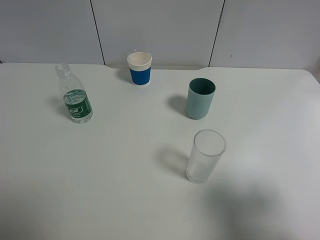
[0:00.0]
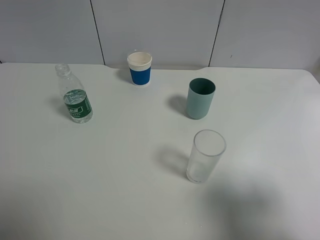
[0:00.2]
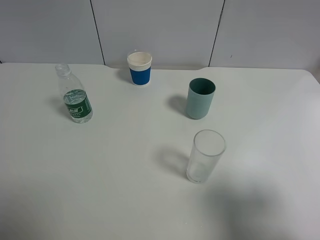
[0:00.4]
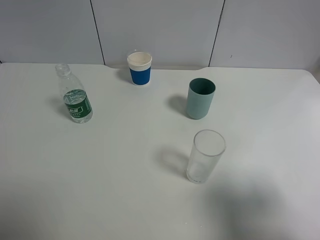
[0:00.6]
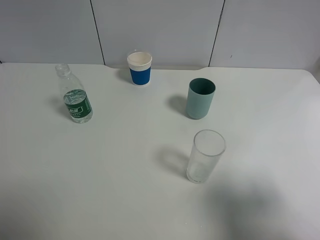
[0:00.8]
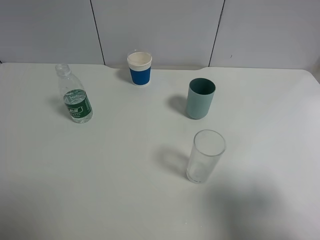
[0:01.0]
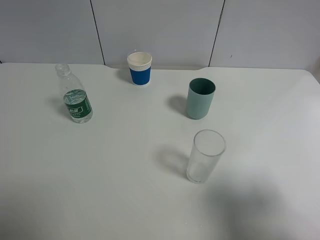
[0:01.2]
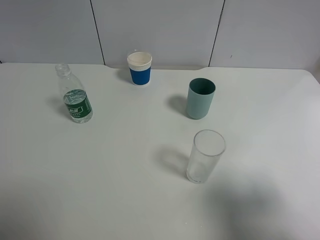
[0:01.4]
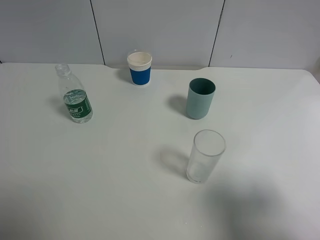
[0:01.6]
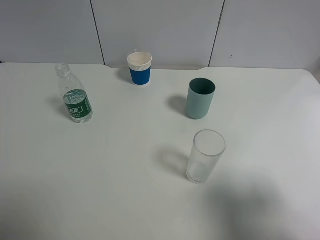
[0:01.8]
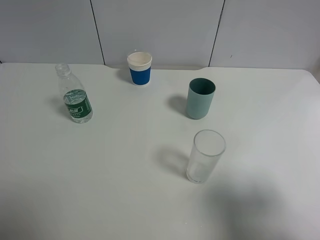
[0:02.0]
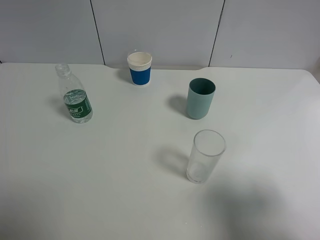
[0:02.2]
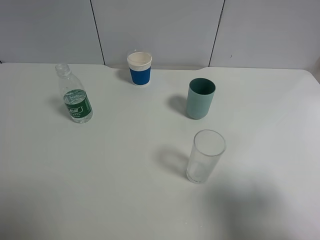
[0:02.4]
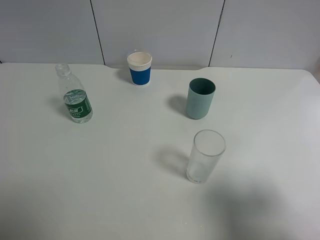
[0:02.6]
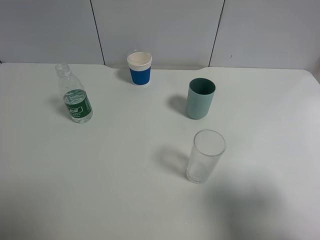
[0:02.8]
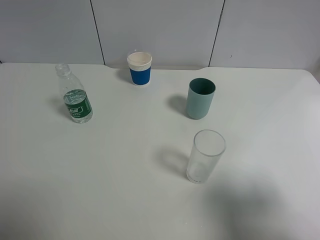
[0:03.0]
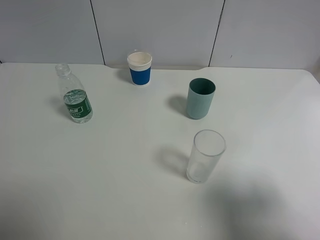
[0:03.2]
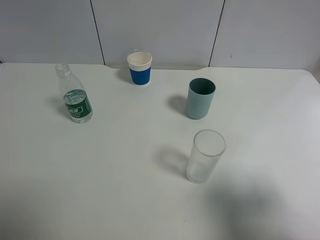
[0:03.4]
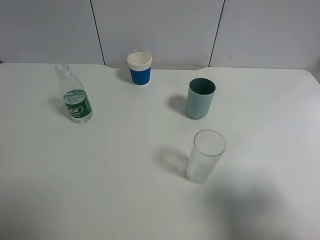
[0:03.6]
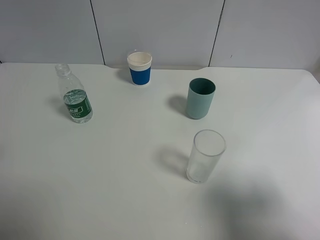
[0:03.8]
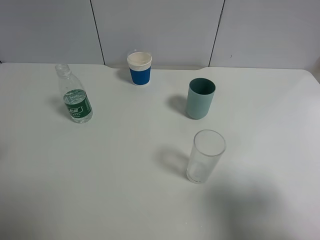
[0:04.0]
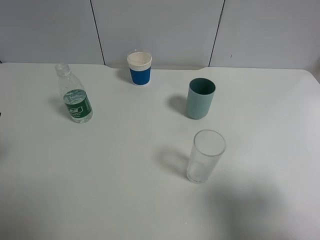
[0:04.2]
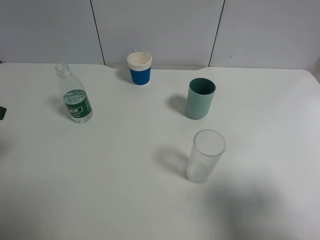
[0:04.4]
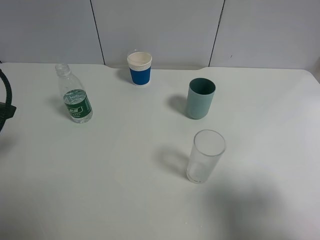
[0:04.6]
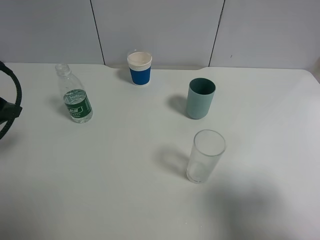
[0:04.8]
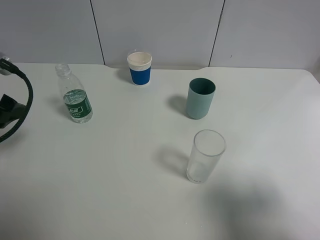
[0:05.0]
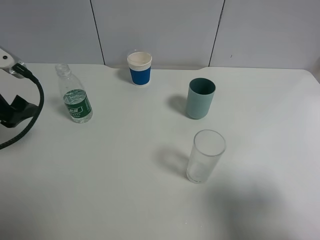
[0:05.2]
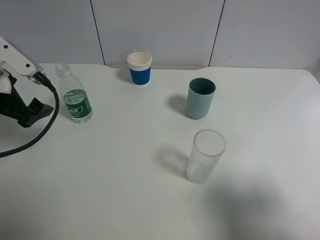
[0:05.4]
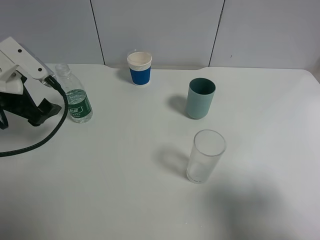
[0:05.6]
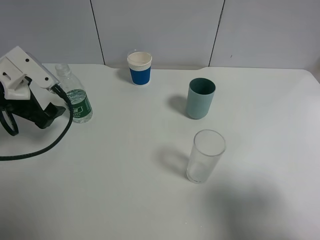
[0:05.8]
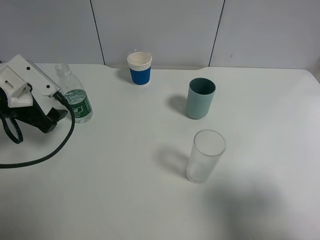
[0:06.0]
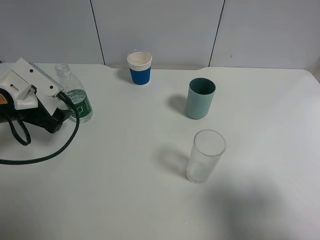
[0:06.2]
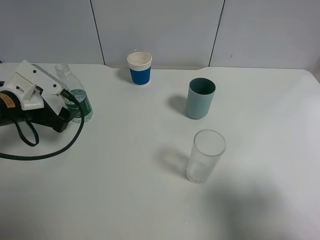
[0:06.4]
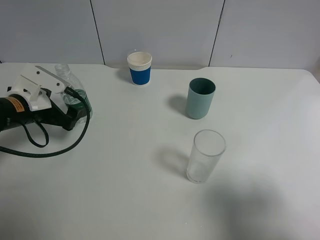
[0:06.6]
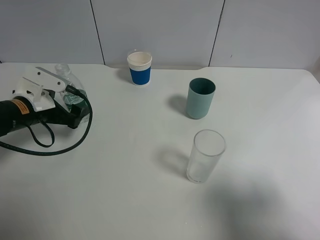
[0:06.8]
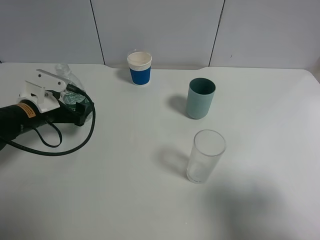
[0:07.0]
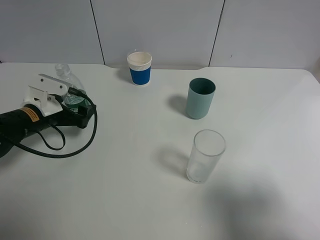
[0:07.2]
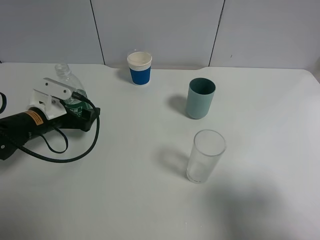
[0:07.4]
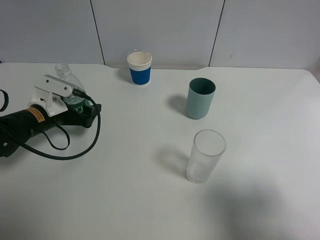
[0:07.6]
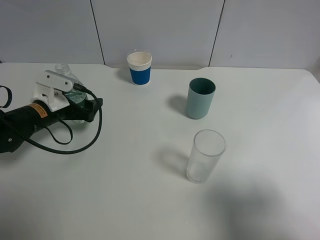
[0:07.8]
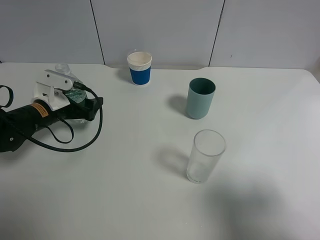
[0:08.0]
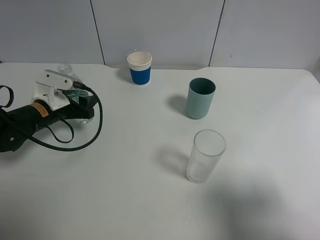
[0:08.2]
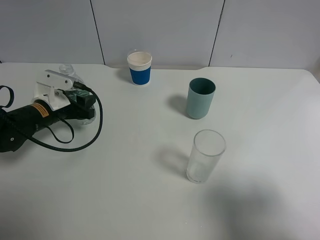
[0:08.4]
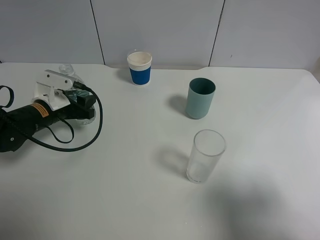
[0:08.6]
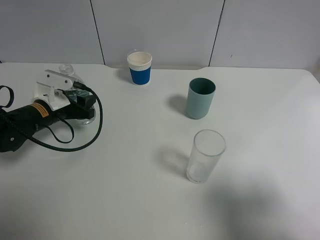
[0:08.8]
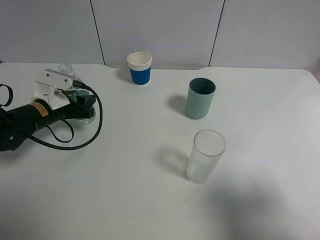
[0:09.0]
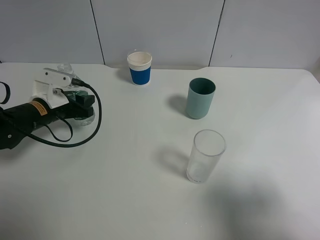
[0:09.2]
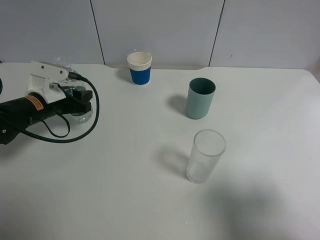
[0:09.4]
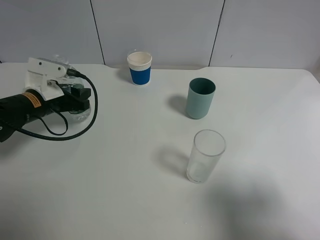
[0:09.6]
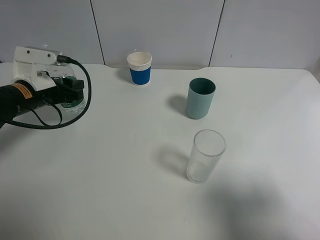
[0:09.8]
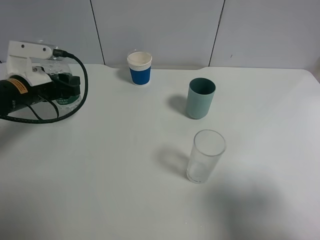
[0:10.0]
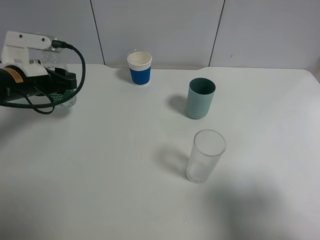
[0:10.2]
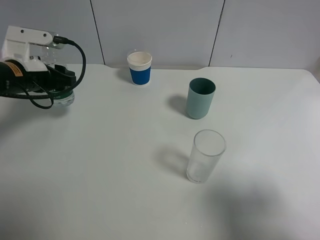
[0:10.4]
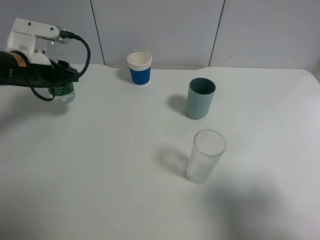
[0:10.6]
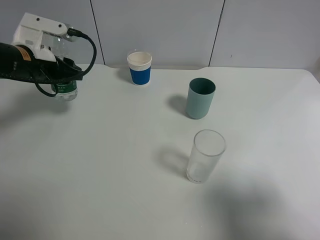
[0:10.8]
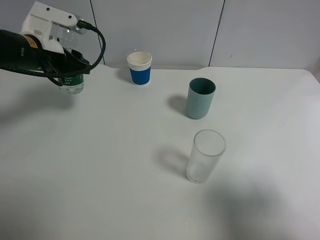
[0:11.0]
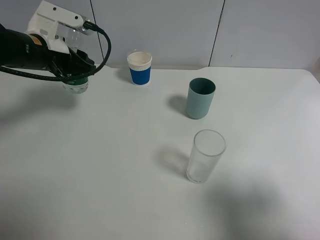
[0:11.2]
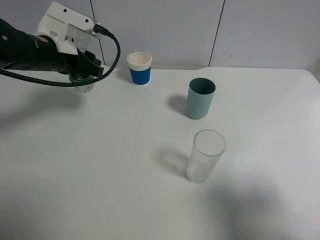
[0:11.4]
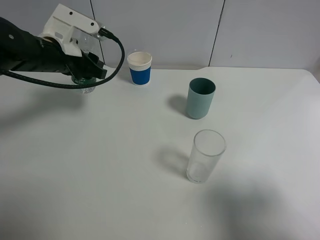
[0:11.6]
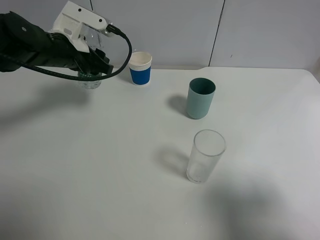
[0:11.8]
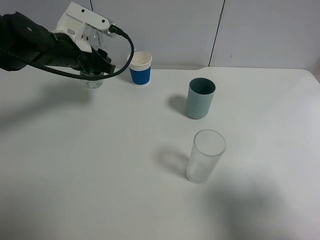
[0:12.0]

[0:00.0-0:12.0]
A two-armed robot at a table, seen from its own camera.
Task of the whole recording: use a gripper to hold the bottle of the drink and pour it into a random cup.
Step, 0:00.0 to 0:08.4: Grasp the mineral water bottle with the left gripper.
0:00.0 to 0:03.0: Both grippers stay put.
0:04.4 to 0:06.0: The left gripper travels downward and forward by roughly 15 cm.
0:06.0 to 0:07.6: The left gripper shifts approximately 10 cm downward.
0:07.6 to 0:09.0: The left gripper closes its fingers.
0:09.0 to 0:10.4: The left gripper moves upward, about 10 cm.
0:10.4 to 0:12.0: The left gripper is displaced to the right and forward by approximately 10 cm.

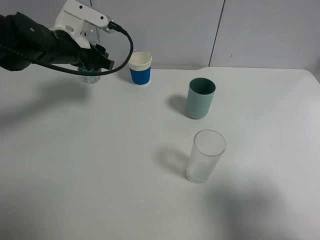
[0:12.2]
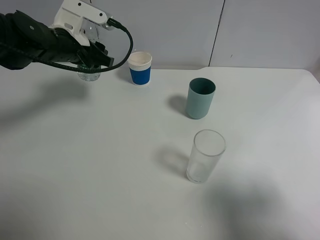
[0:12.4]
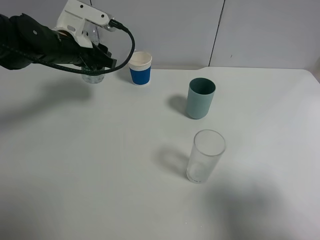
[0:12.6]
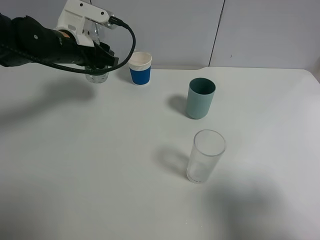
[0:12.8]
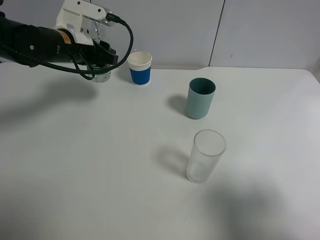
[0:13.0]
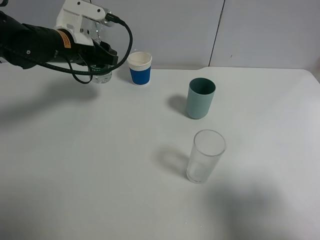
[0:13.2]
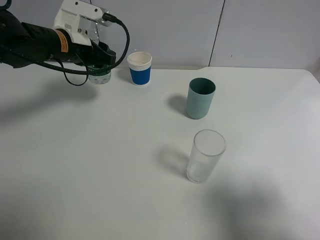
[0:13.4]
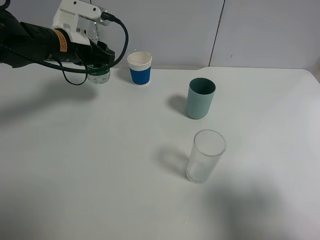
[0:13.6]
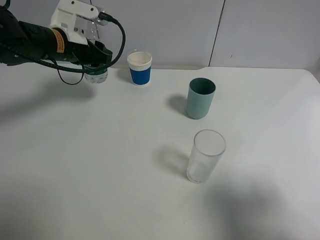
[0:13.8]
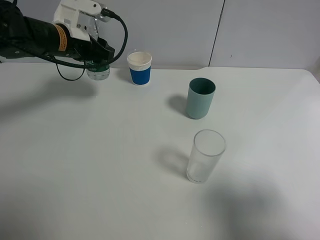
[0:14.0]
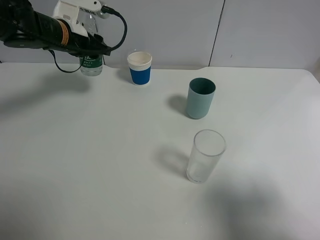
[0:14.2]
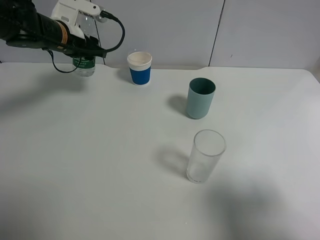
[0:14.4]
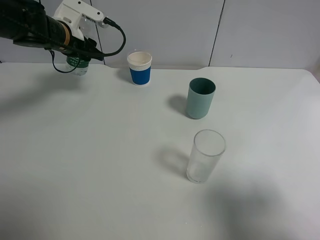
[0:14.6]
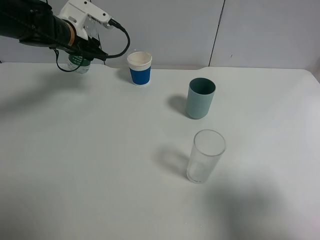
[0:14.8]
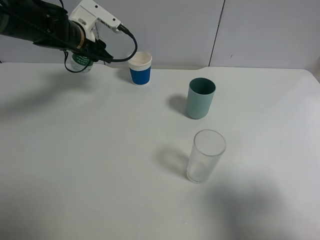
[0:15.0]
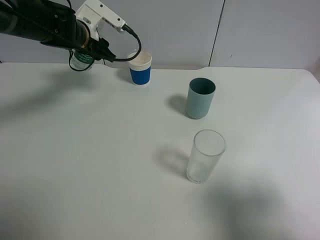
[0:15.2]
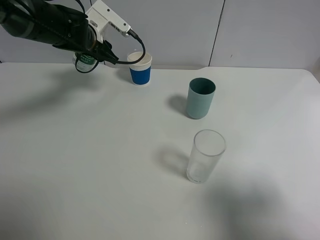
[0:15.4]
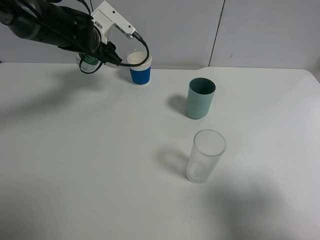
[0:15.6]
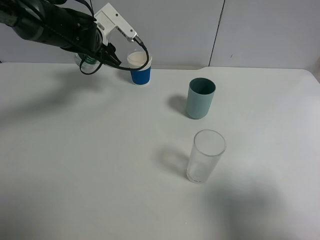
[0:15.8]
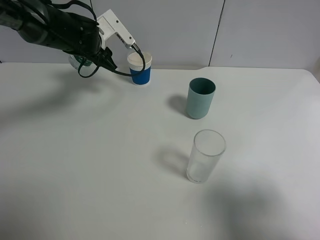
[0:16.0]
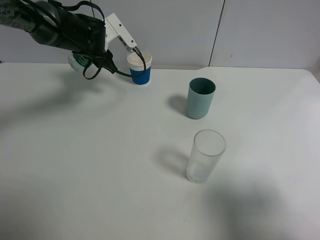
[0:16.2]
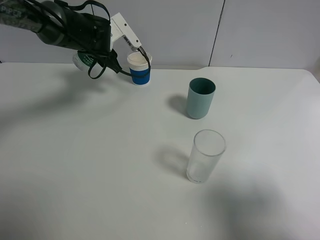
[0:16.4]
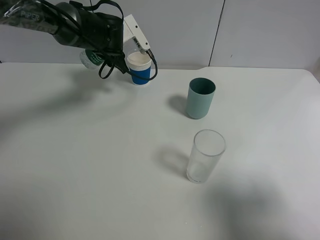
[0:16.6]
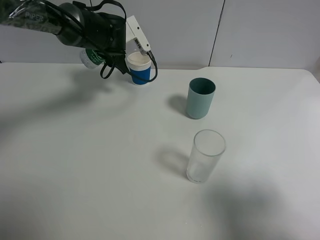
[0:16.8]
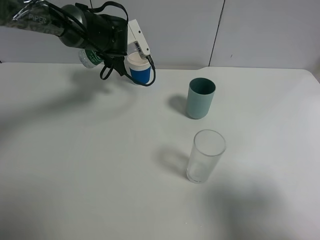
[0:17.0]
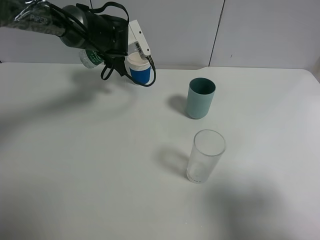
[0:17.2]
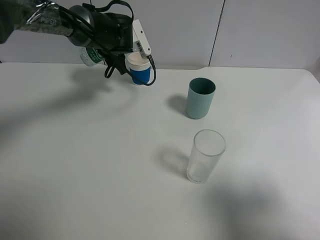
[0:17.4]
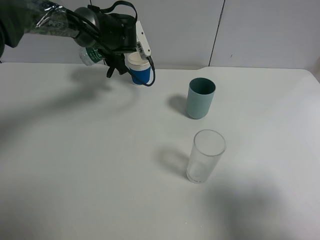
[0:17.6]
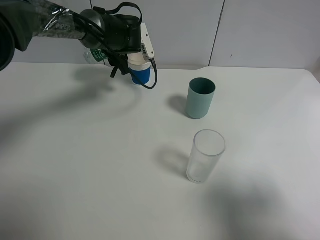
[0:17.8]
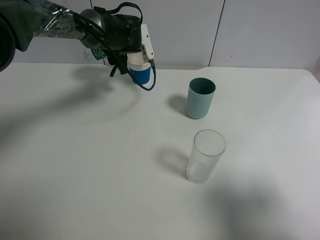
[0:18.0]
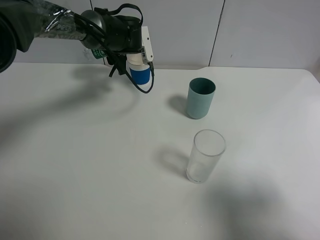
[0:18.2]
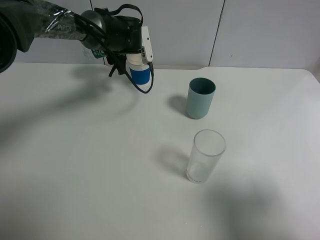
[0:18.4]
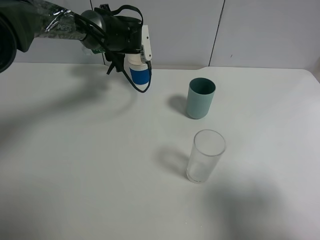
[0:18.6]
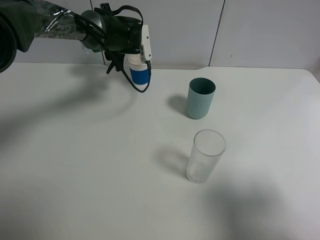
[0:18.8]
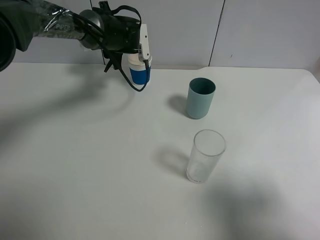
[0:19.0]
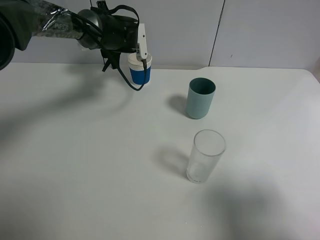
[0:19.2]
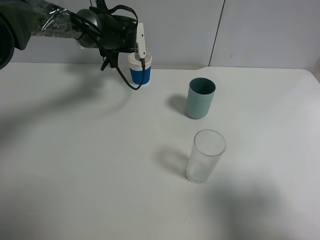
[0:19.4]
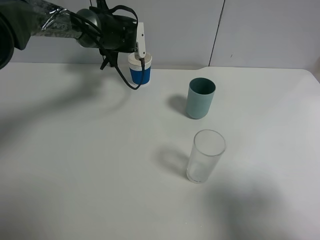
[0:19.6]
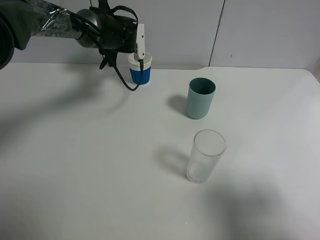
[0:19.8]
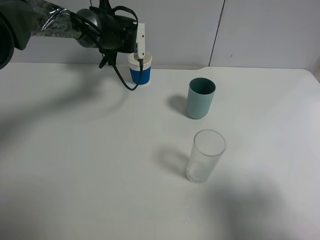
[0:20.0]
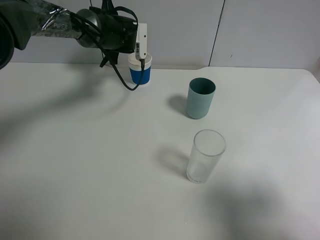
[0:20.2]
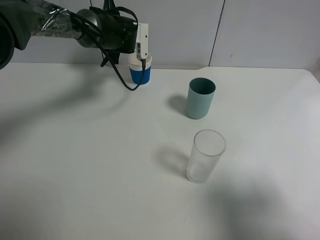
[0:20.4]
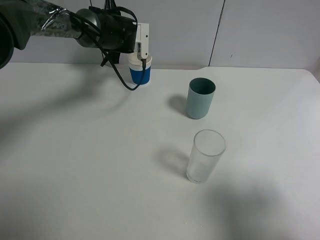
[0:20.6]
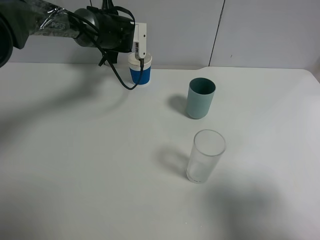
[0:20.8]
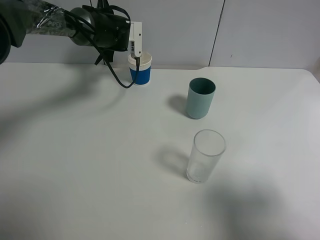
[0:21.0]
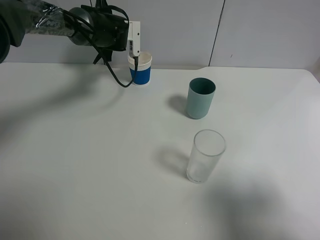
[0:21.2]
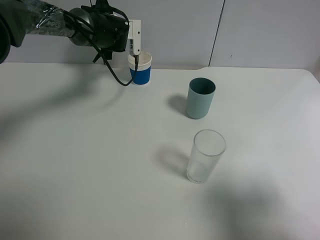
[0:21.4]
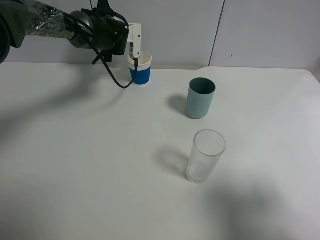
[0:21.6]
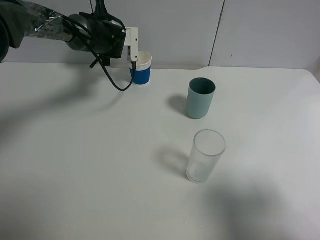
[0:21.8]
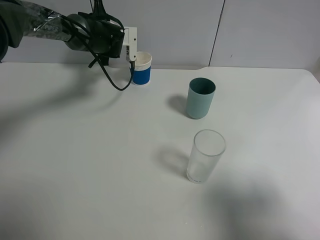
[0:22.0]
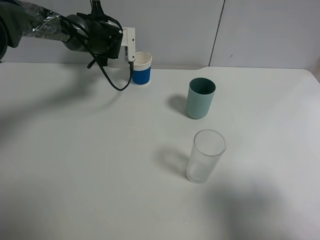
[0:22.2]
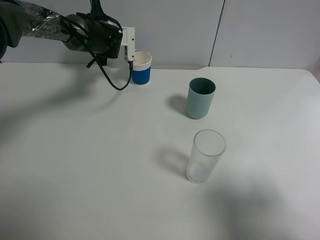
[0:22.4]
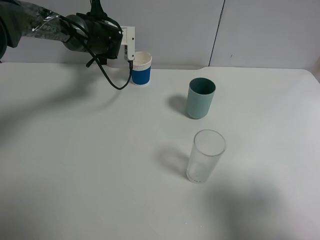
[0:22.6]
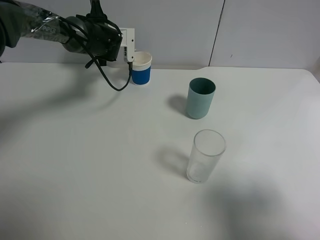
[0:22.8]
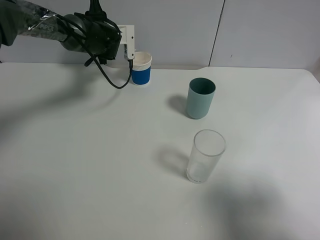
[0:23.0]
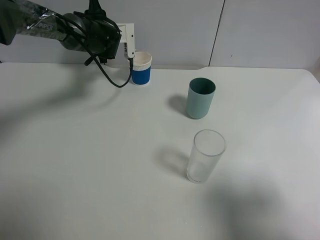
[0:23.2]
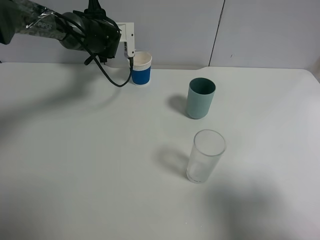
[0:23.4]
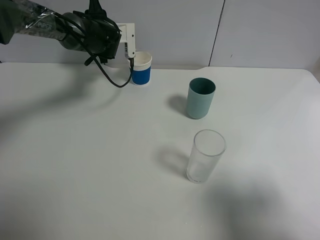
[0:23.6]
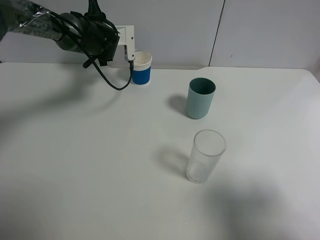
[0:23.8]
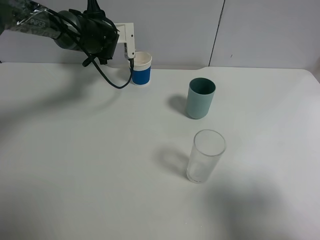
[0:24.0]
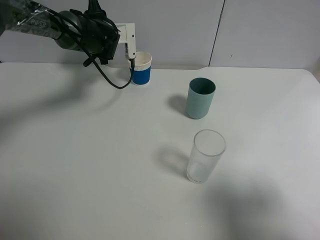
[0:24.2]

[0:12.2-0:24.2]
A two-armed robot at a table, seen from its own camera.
Task of the whole recording: use a gripper to hold the bottle of the drink and pour it into a random cup.
0:12.2 to 0:13.8: The grippers stay close to where they were, moving slightly.
0:13.8 to 0:15.2: The left gripper heads forward, covering roughly 5 cm.
0:15.2 to 0:16.6: The left gripper shifts roughly 5 cm to the right.
0:18.2 to 0:24.2: There are only small adjustments of the grippers.
